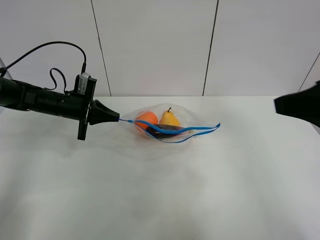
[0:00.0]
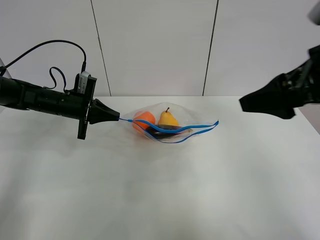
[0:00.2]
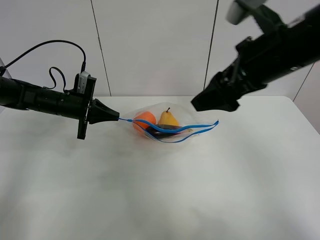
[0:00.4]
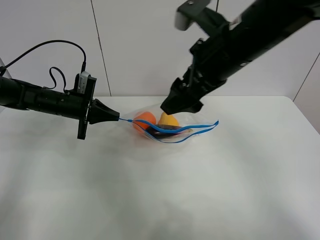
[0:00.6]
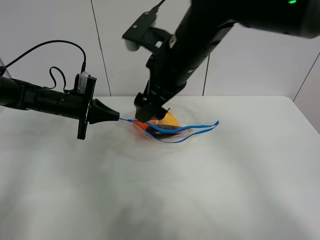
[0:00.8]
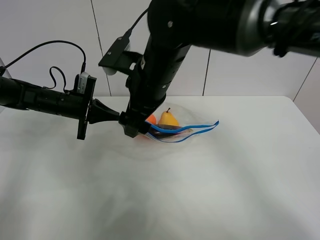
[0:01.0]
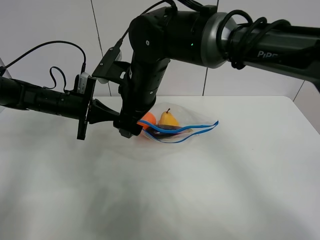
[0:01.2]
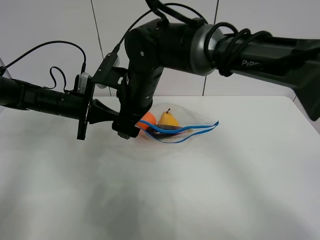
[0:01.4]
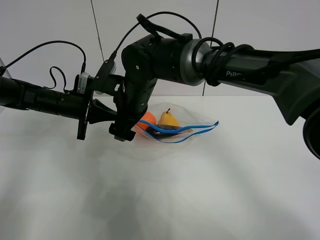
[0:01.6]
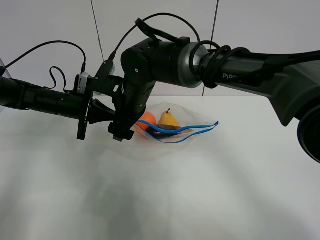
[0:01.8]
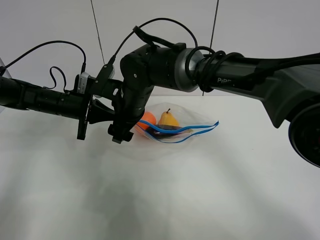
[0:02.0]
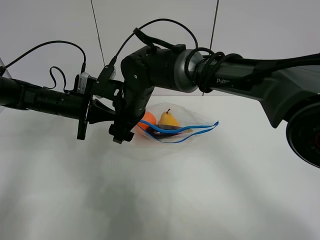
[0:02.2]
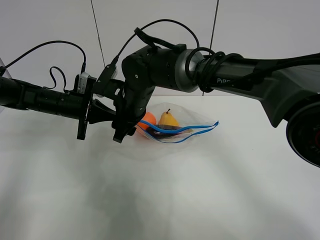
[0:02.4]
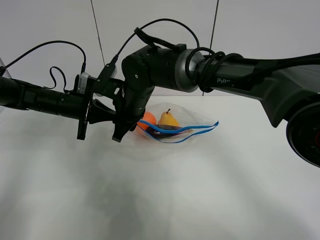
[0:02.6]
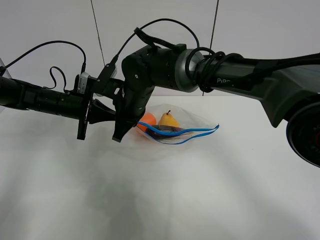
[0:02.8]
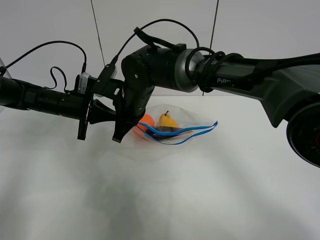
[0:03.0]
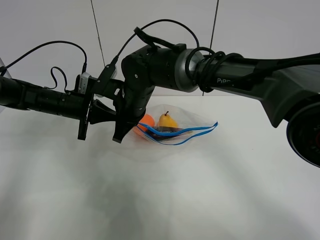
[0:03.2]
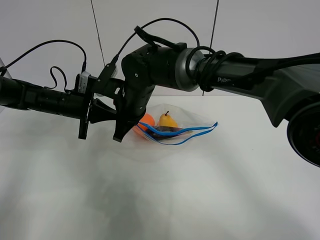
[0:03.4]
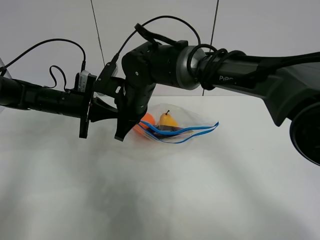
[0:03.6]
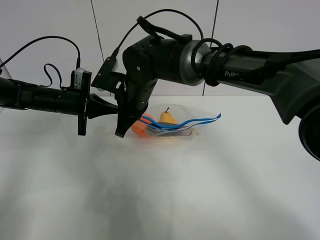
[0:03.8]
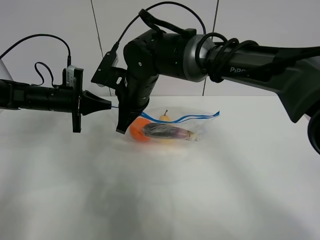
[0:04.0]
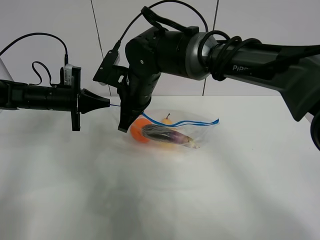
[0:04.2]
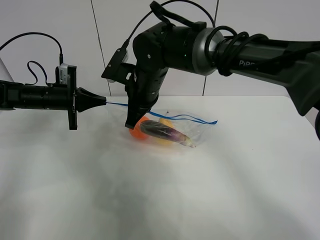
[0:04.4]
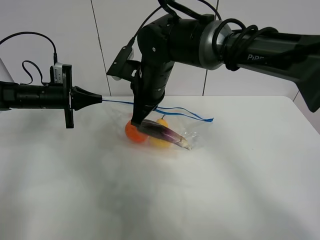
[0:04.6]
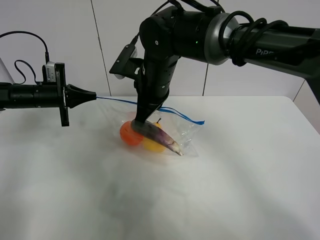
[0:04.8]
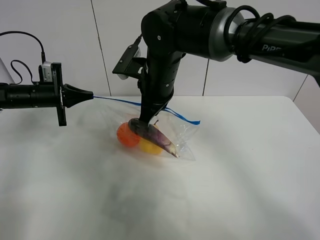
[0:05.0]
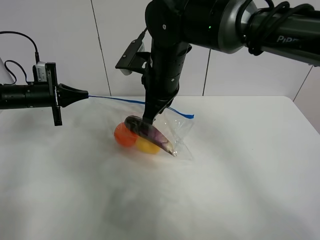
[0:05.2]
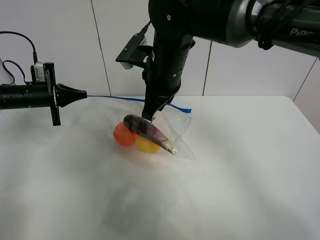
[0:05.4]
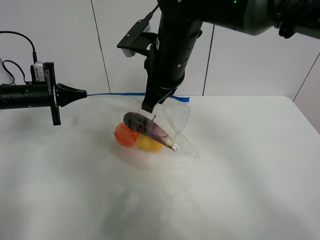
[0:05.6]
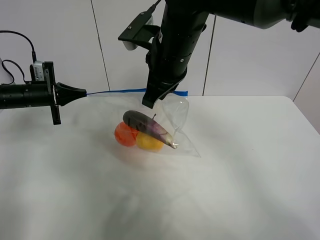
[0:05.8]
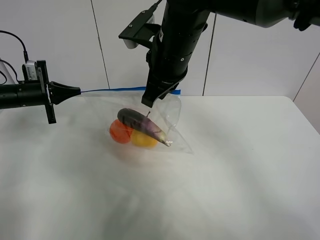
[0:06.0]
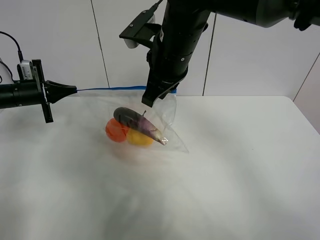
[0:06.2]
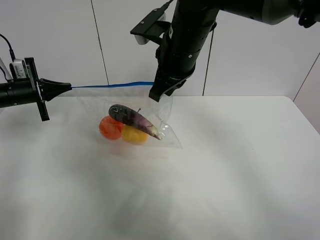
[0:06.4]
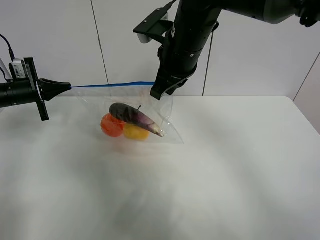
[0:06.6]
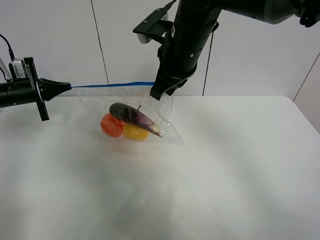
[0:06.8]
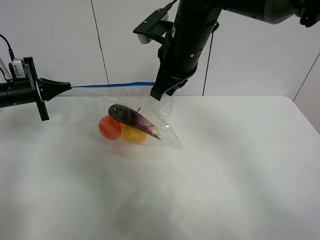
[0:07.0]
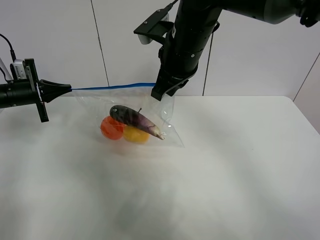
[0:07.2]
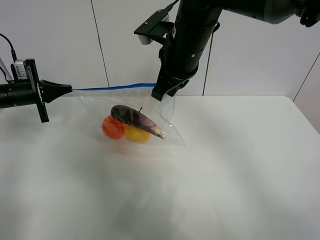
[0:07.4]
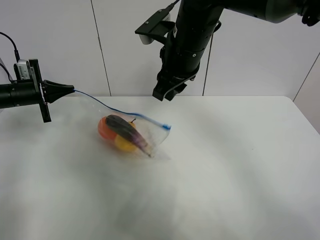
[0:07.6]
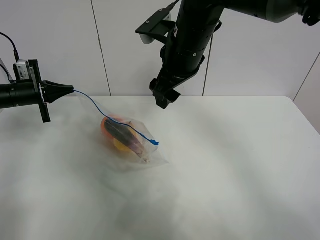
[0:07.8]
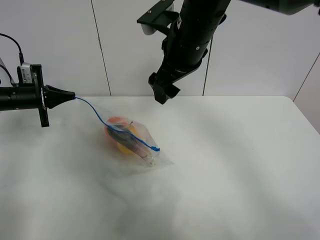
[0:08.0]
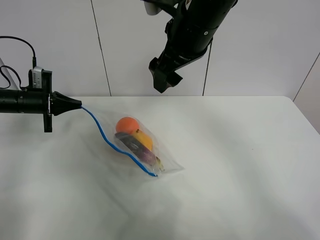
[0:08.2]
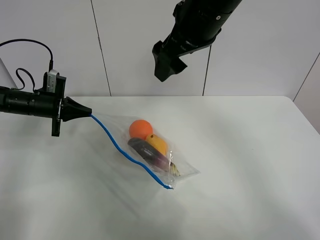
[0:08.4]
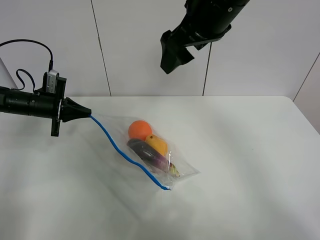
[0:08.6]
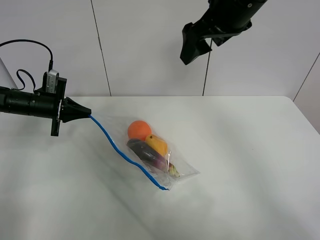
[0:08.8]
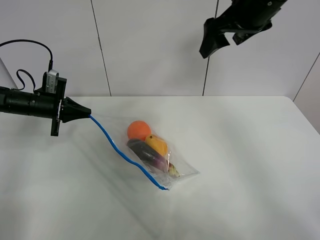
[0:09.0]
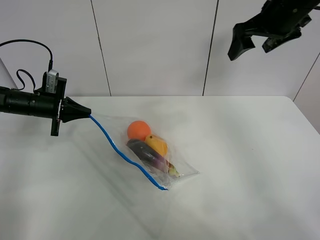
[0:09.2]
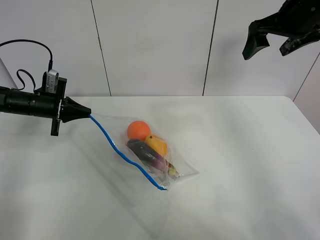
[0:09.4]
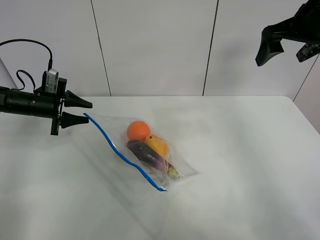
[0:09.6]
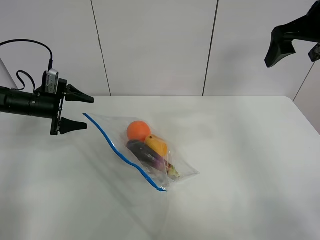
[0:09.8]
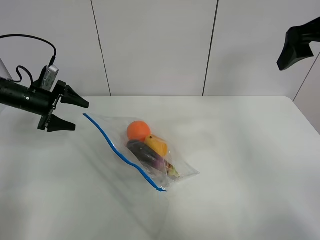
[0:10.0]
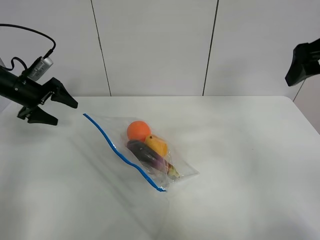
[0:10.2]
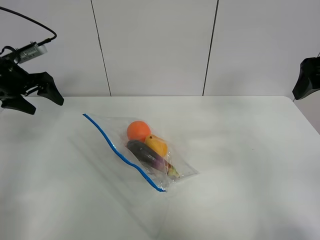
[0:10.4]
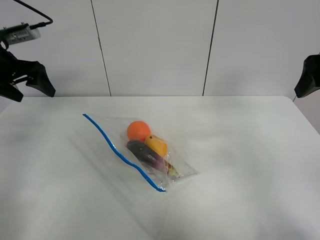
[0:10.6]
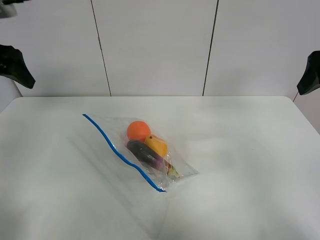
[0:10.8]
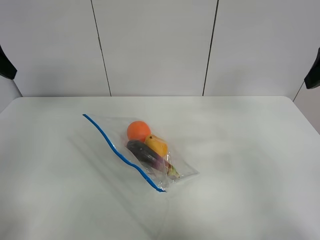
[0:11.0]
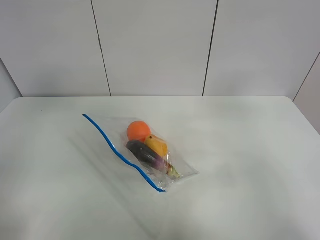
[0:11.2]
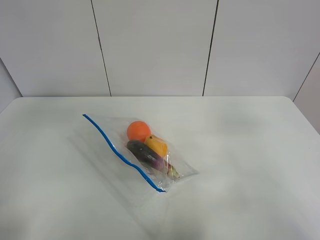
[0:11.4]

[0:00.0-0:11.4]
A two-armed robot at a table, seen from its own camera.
Step, 0.4 to 7.6 s: Pull the fruit bag with right gripper.
Step, 7.8 to 9.8 s: Place the fruit bag with left gripper.
0.0 to 1.4 s: The right gripper shifts some 35 cm to the left and forward.
1.4 to 2.8 s: The right gripper closes.
4.2 to 5.6 s: The right gripper goes roughly 10 cm upward and to the right; the left gripper is displaced to the left by some 5 cm.
5.6 to 7.2 s: The grippers stay close to where they were, moving slightly.
7.2 to 8.6 s: The right gripper shifts roughly 5 cm upward, and opens up; the left gripper heads to the right, covering about 5 cm.
8.6 to 10.0 s: The left gripper opens its fingers. Meanwhile the right gripper moves to the right, roughly 20 cm.
10.0 to 11.4 s: The left gripper goes approximately 35 cm backward and upward; the right gripper travels backward by about 15 cm.

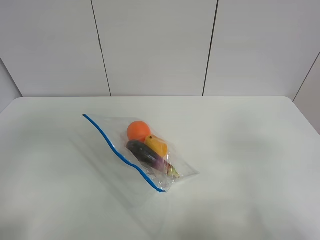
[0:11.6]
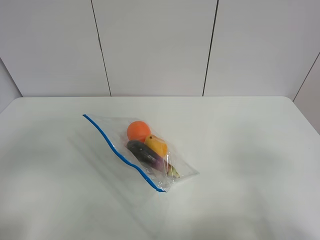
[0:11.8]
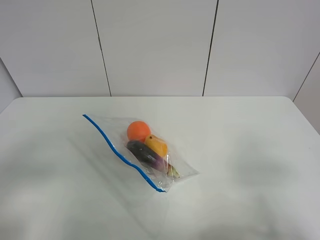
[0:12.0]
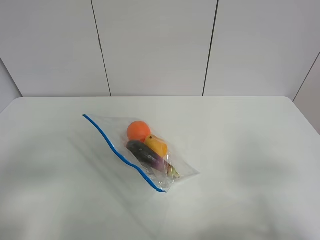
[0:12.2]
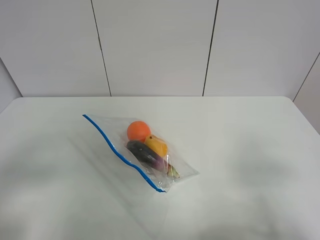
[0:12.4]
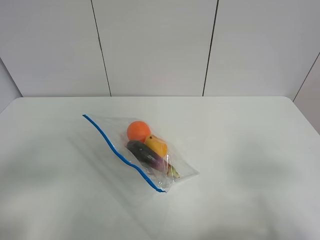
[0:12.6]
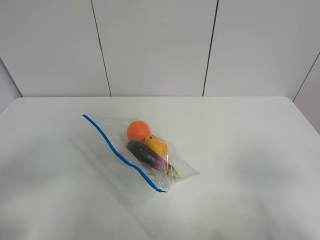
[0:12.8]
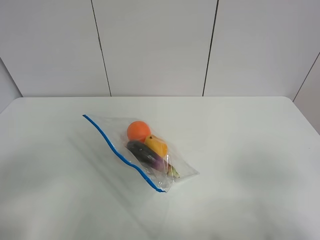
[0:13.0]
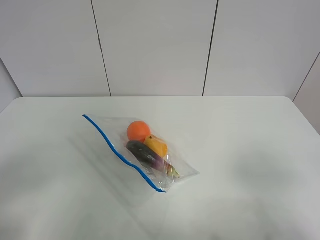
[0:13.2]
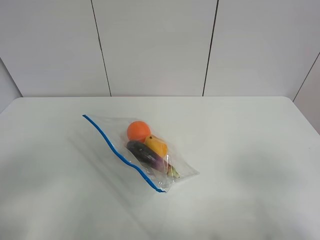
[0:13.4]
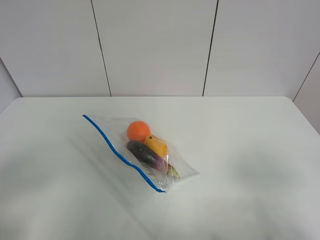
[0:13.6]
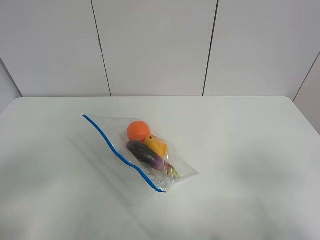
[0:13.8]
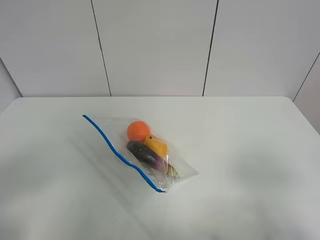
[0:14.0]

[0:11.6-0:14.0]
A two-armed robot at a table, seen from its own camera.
11.6 to 12.8 s: The right gripper is displaced backward by roughly 10 cm; the left gripper shifts roughly 10 cm downward and backward.

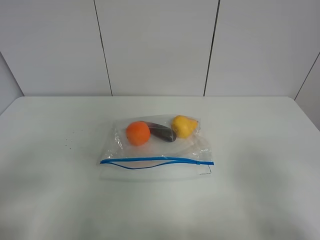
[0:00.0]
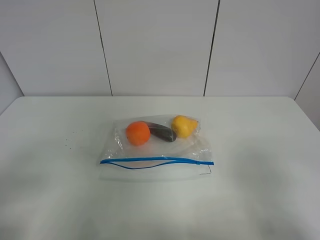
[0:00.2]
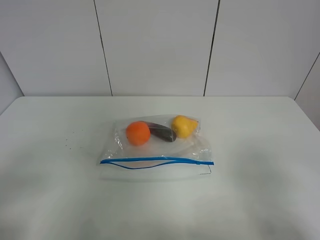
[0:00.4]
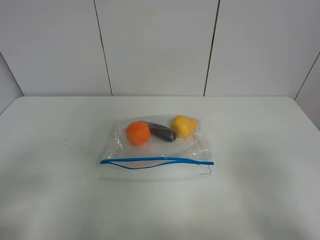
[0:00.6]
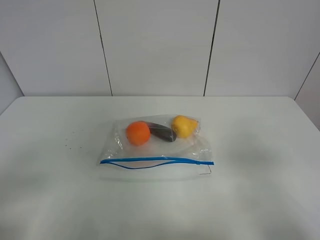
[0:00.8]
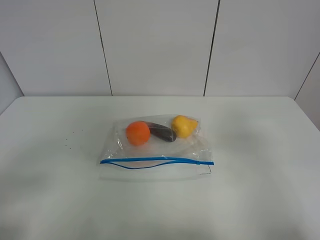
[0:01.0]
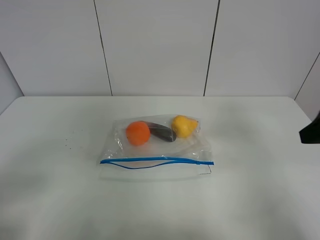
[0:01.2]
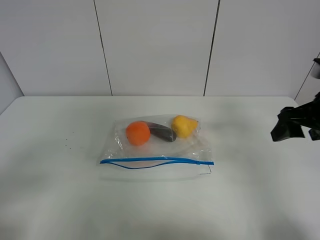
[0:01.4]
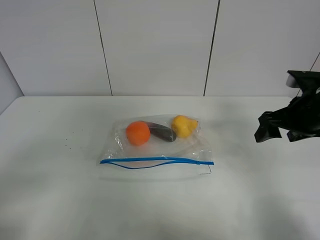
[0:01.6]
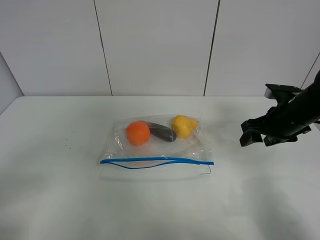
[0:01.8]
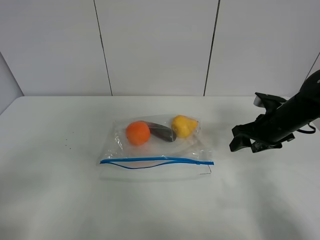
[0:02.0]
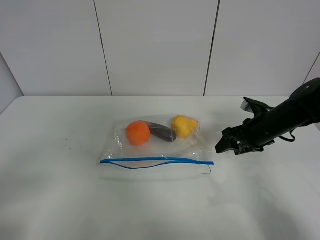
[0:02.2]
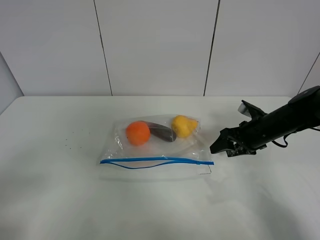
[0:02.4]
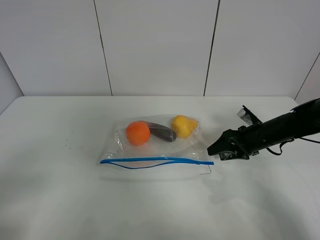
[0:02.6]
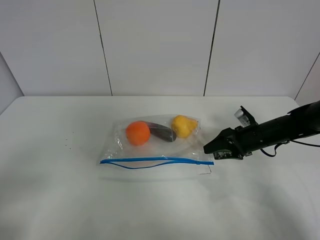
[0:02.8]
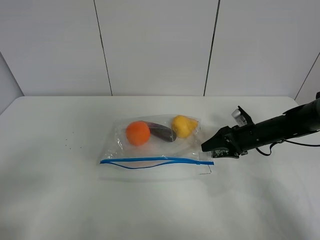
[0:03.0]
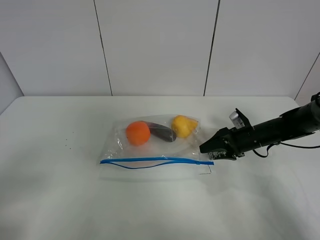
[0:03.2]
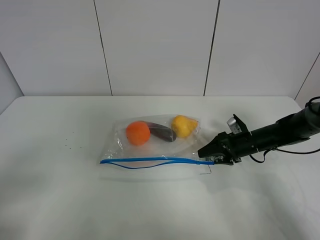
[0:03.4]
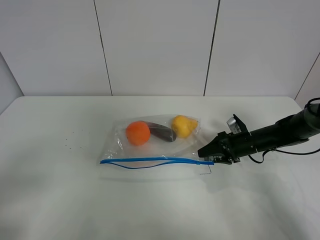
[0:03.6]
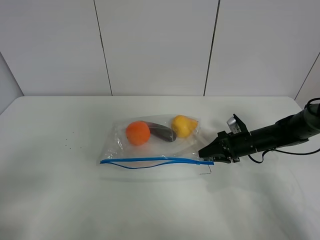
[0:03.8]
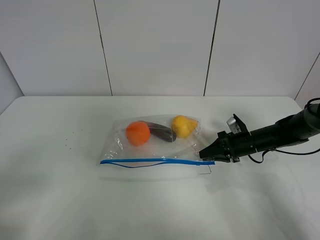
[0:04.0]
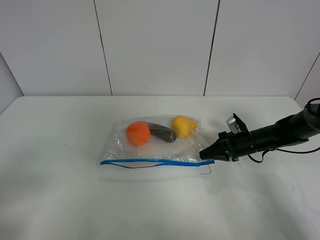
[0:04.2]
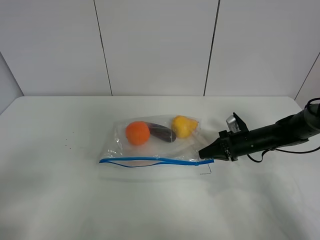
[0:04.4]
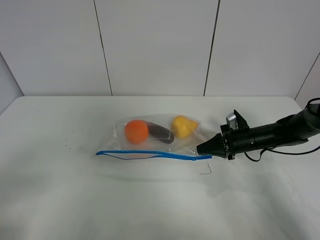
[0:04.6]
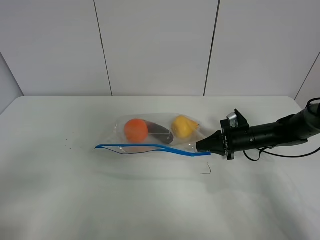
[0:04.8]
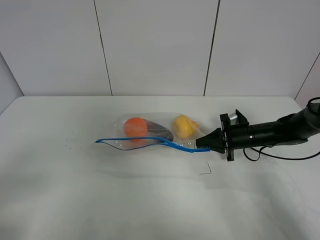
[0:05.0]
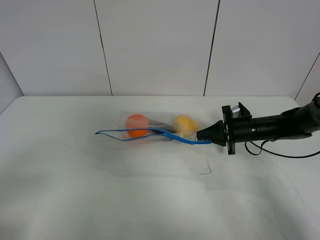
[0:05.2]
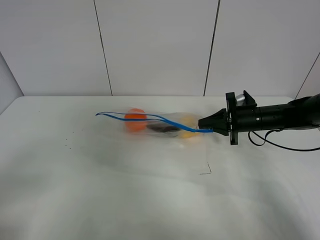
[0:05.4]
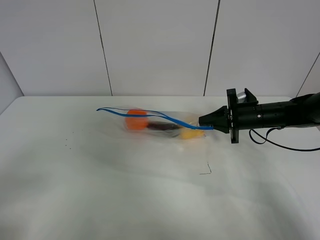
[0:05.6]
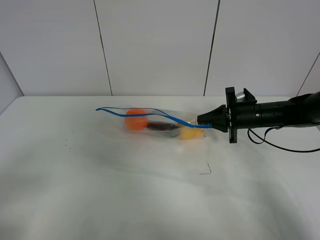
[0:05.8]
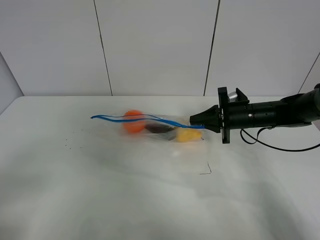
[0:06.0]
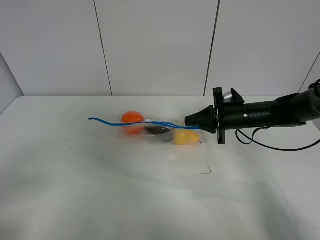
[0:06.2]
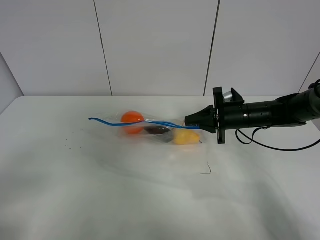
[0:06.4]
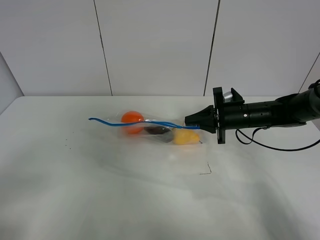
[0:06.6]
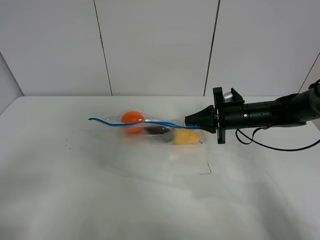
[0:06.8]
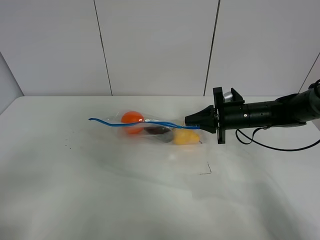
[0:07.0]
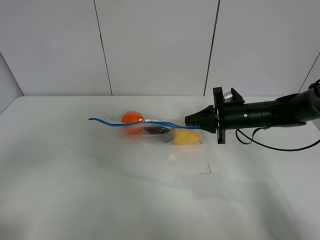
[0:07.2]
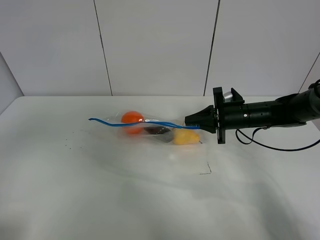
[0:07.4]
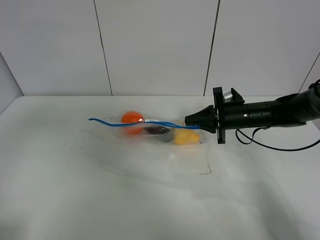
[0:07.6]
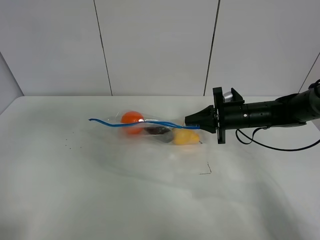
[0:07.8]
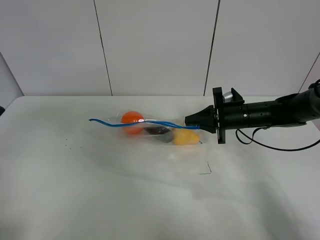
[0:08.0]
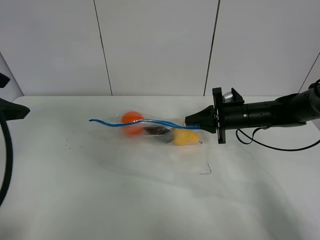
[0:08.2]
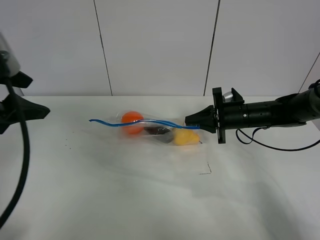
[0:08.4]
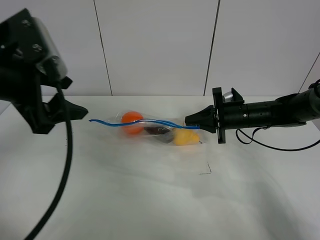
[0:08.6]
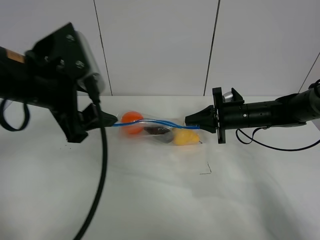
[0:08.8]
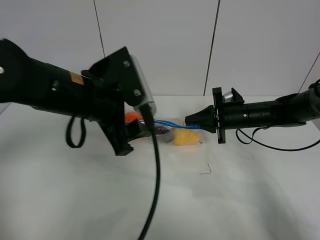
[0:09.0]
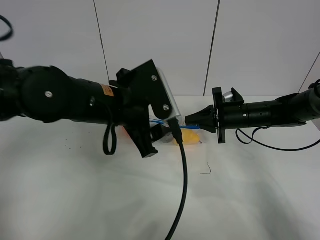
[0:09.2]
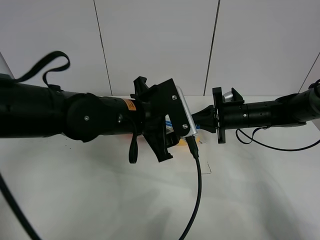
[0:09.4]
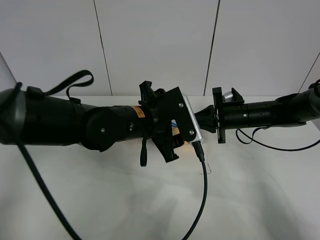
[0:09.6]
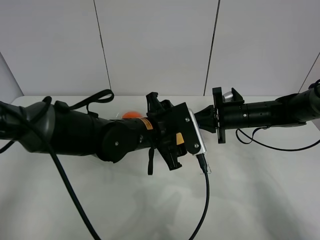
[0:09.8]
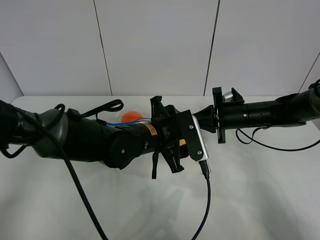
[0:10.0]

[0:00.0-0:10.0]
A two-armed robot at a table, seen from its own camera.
Step, 0.0 to 4.0 s: Grasp the fruit bag with right gripper.
Step, 4.2 to 6.6 s: Lift the fruit bag with your right gripper.
0.0 to 1.4 s: The right gripper moves forward, roughly 25 cm.
1.4 to 2.8 s: The right gripper travels downward and forward by approximately 20 cm.
2.8 to 4.2 s: The right gripper closes its fingers.
4.2 to 5.8 s: The right gripper goes about 10 cm upward.
5.8 to 7.2 s: The left gripper is displaced upward by some 5 cm.
7.2 to 8.6 s: The left gripper moves forward and to the right, some 25 cm.
8.6 to 10.0 s: The left gripper travels to the right and downward by some 25 cm.
